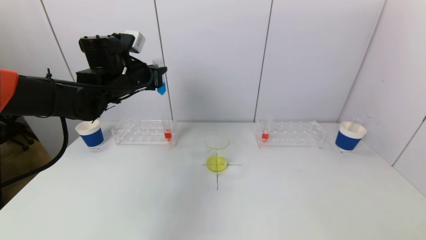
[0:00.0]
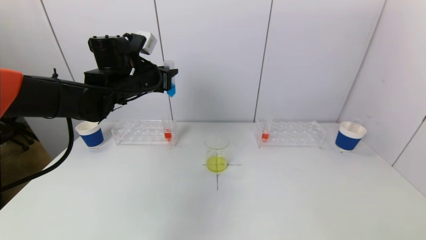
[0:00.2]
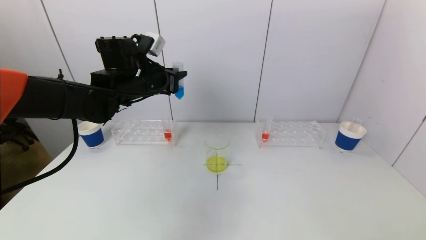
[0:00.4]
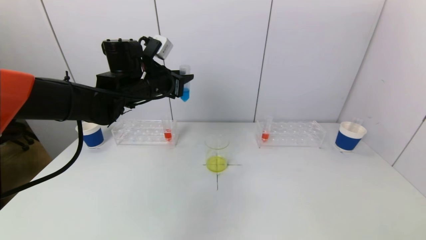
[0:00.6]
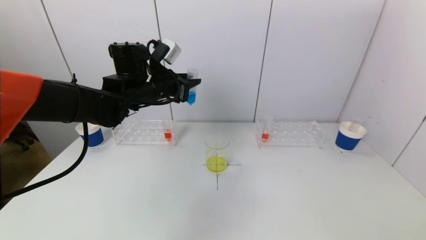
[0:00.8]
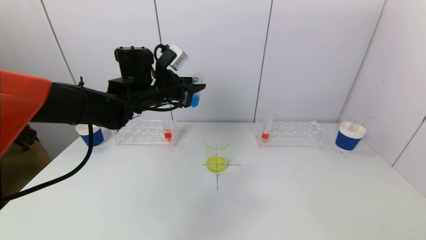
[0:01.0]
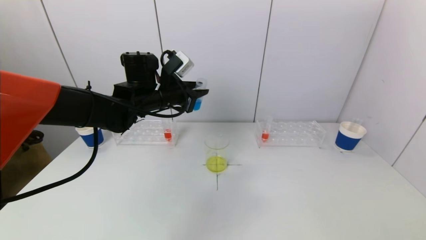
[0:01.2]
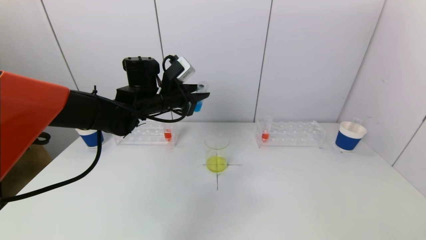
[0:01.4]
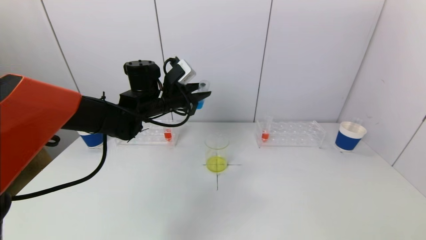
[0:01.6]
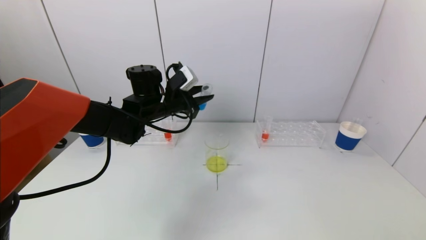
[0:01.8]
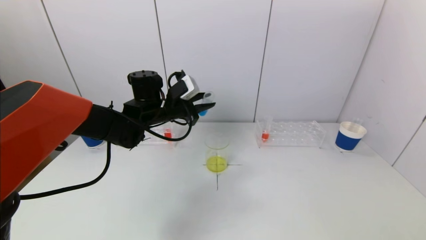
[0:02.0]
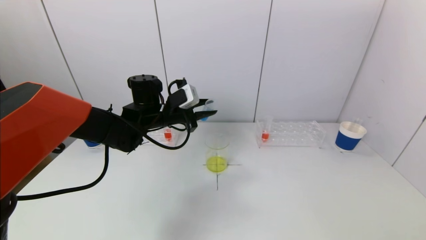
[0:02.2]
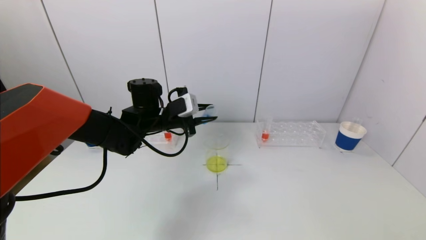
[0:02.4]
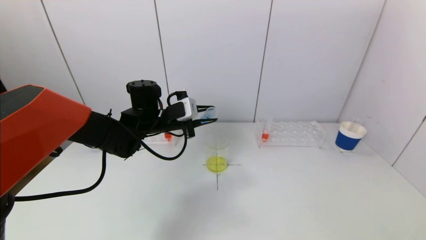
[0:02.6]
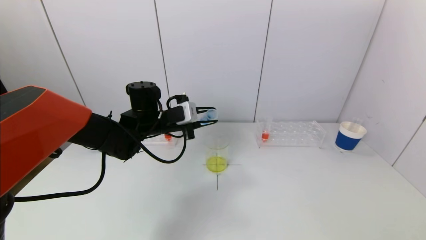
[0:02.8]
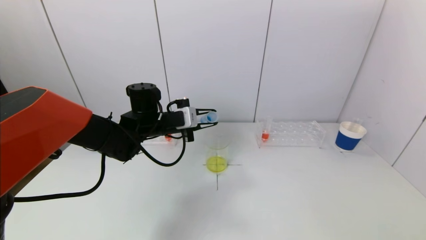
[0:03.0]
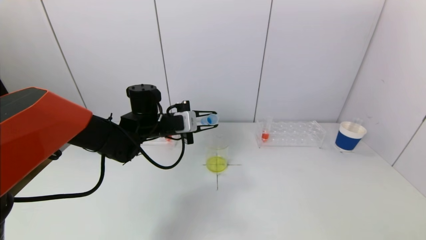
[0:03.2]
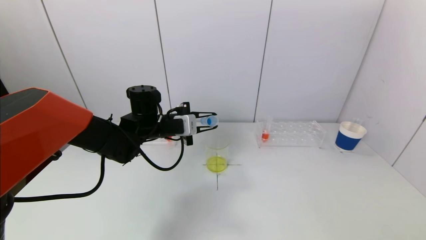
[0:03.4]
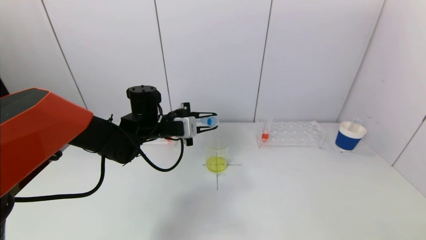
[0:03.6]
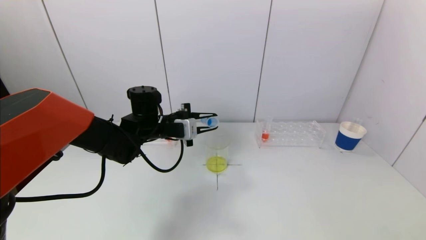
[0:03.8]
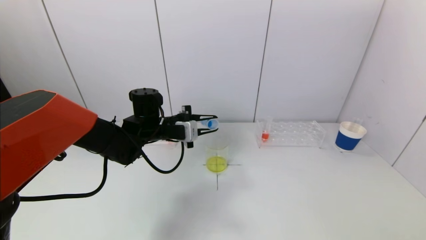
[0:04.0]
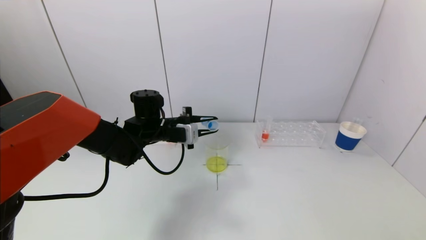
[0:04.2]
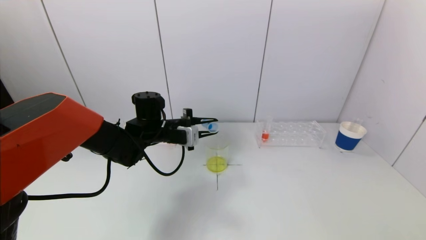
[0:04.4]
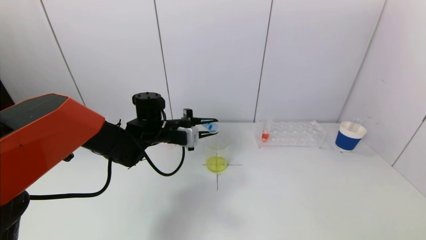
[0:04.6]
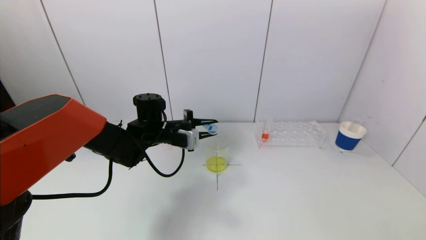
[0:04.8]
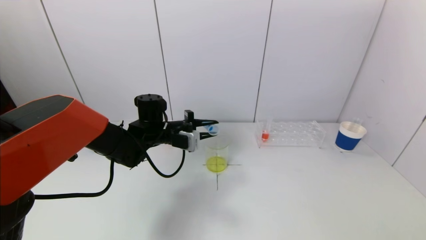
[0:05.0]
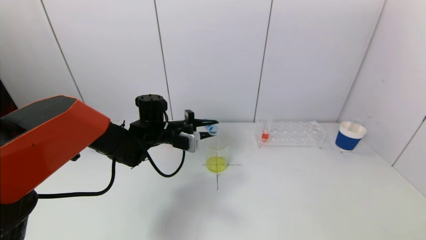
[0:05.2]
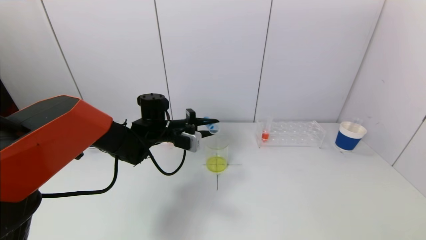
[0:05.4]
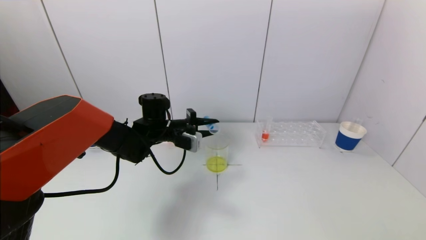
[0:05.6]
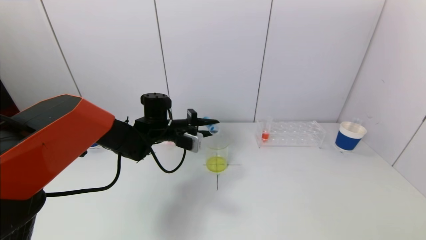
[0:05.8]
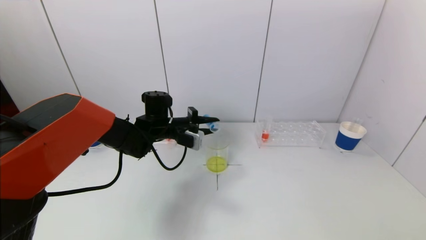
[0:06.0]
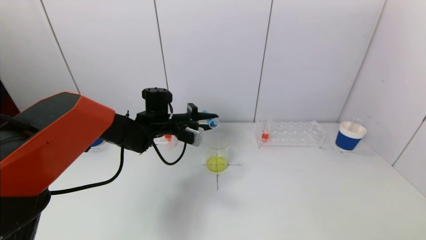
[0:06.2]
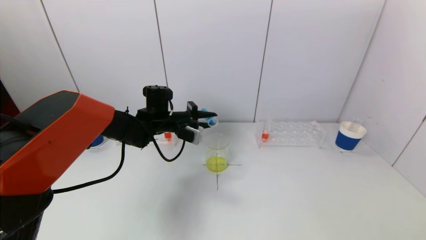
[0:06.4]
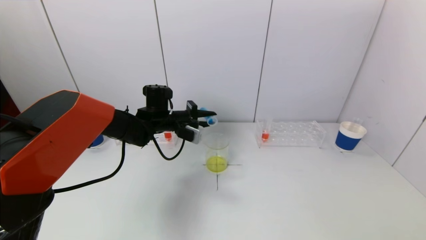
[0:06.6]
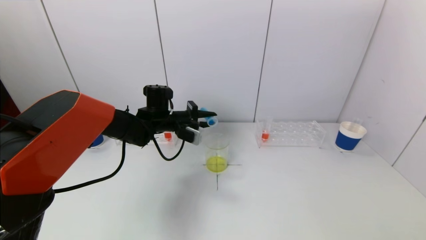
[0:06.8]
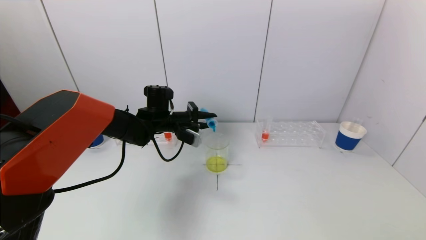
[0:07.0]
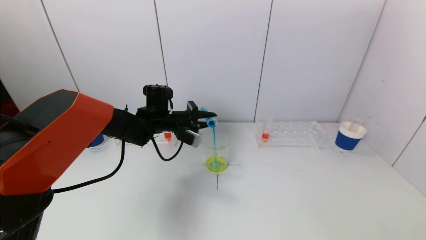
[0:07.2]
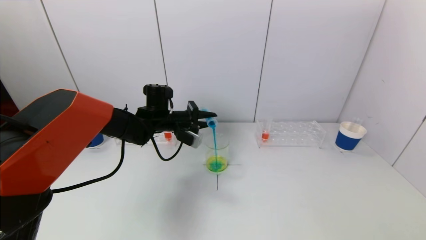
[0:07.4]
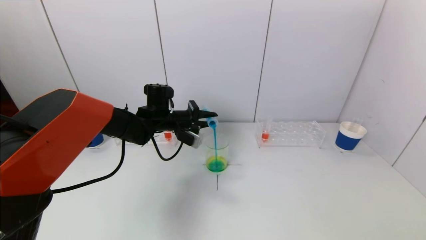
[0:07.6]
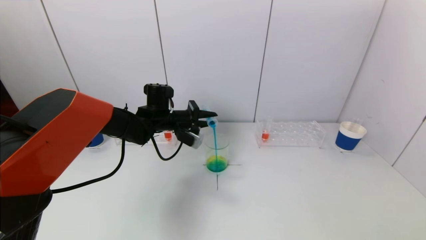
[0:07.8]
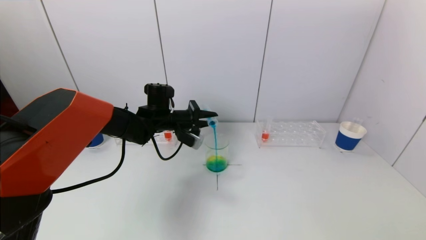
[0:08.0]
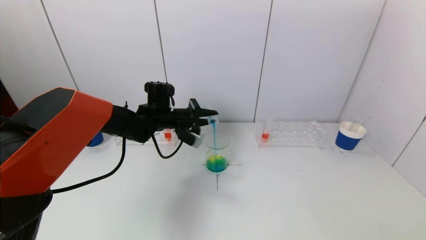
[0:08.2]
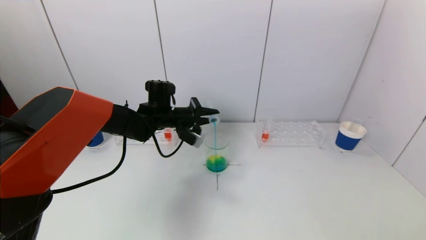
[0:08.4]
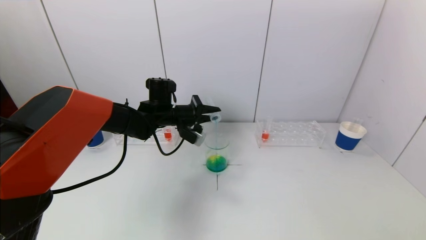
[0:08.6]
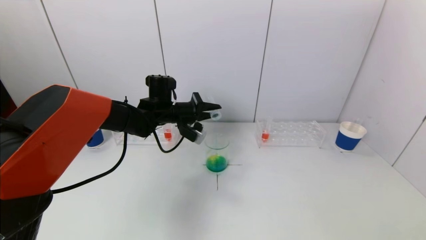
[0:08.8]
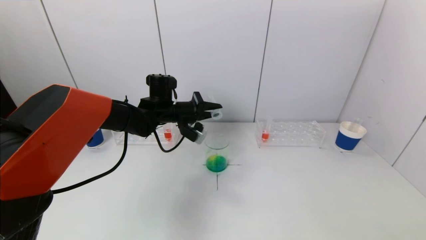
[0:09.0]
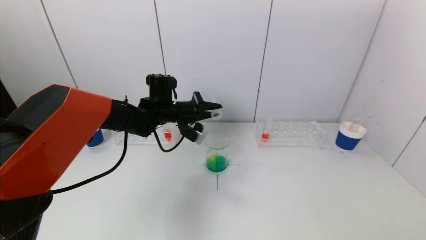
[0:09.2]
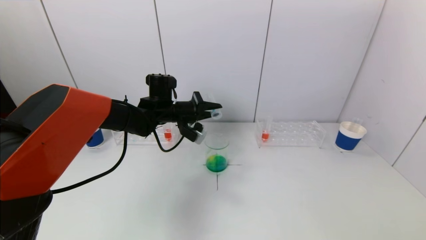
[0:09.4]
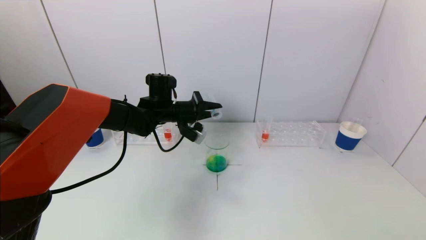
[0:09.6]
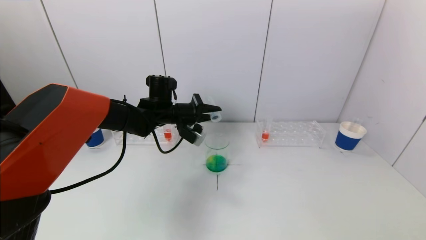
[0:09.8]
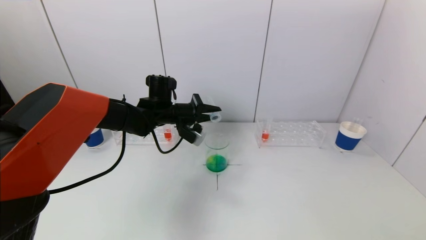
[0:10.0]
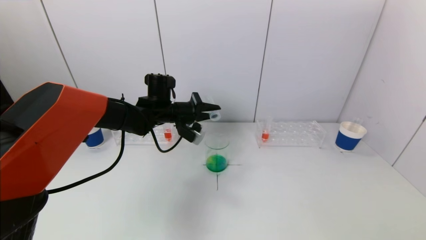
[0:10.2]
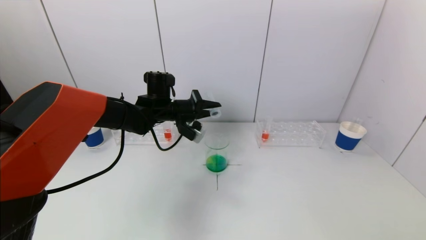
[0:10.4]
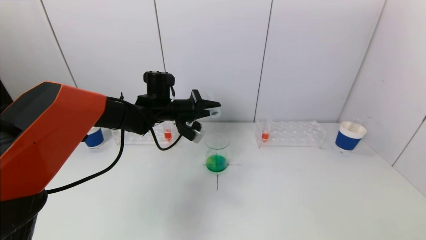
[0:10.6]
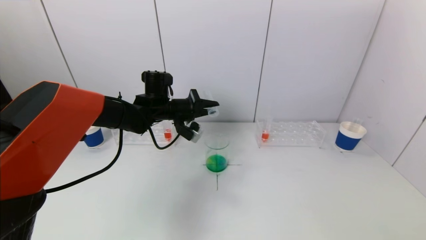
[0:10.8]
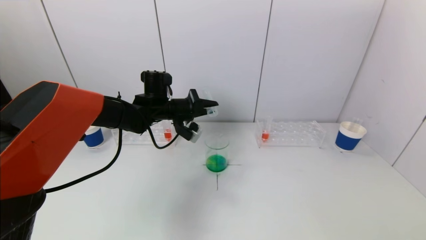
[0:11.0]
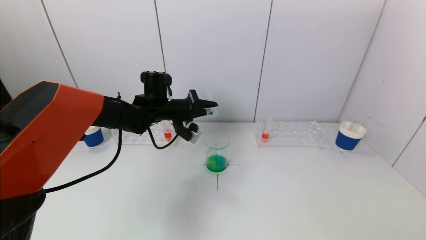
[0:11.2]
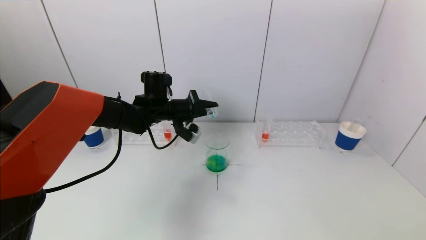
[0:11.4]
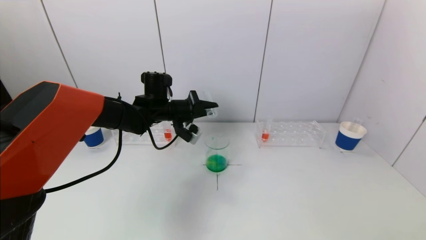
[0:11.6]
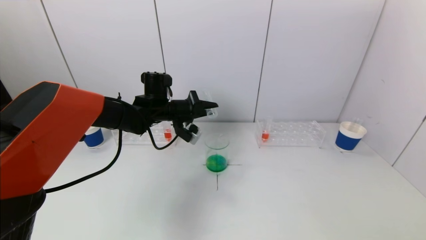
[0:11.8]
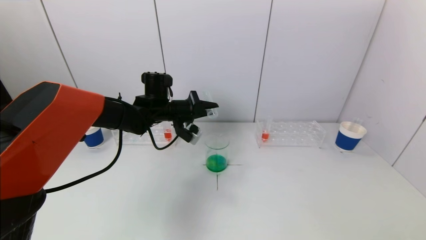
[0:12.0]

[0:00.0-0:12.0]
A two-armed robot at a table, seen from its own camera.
Task of the whole recording: pick up a test tube with pigment on left test tube rack and a test tube with pigment on right test tube rack by grippers and pour them into the beaker.
Step, 0:00.0 to 0:10.8: Pour the blue reagent into the graduated cylinder with the left gripper.
0:00.0 to 0:01.6: The left gripper travels to the right and downward by some 10 cm.
0:01.6 to 0:03.0: The left gripper shifts by about 5 cm.
0:03.0 to 0:04.4: The grippers stay close to where they were, moving slightly.
0:04.4 to 0:06.0: The grippers move only a little.
0:06.0 to 0:07.6: There are only small adjustments of the grippers.
0:07.6 to 0:09.0: The grippers stay close to where they were, moving slightly.
0:09.0 to 0:10.4: Both grippers stay put.
0:10.4 to 0:12.0: The grippers move only a little.

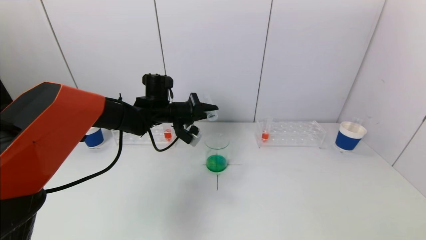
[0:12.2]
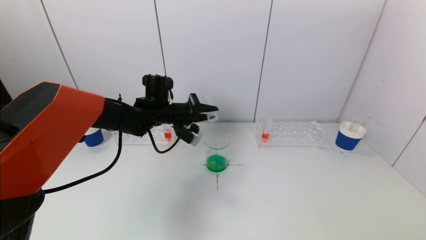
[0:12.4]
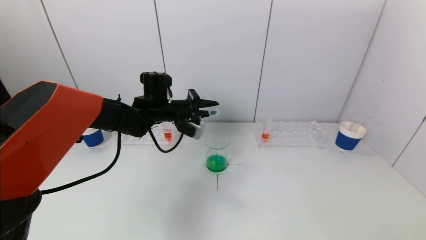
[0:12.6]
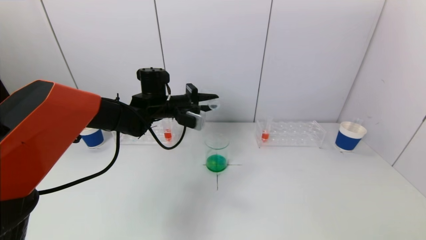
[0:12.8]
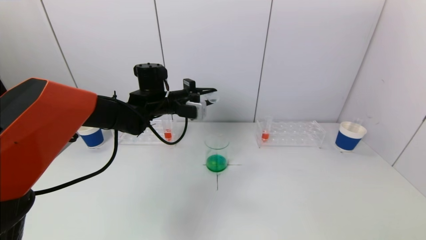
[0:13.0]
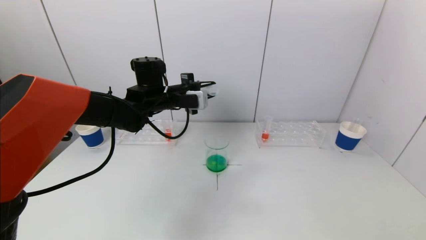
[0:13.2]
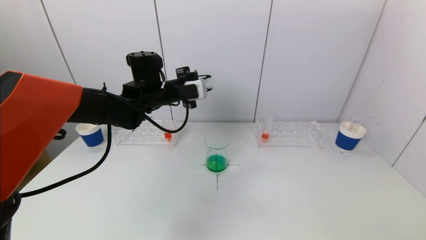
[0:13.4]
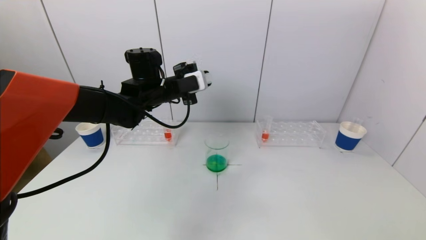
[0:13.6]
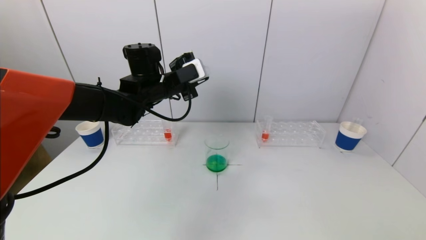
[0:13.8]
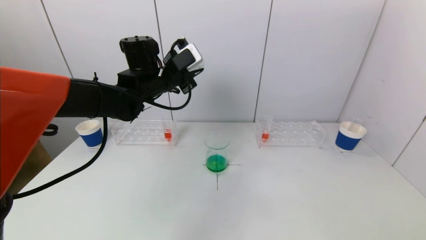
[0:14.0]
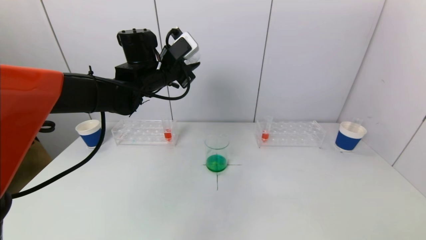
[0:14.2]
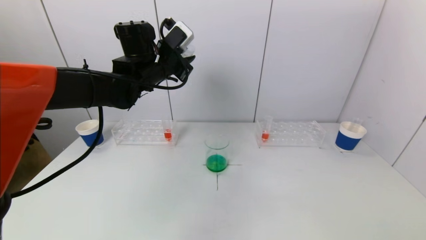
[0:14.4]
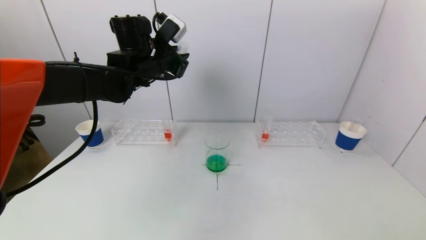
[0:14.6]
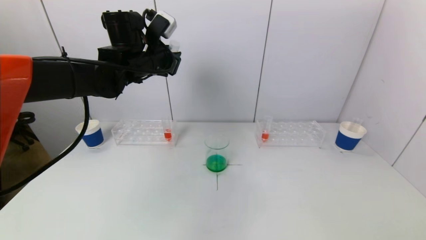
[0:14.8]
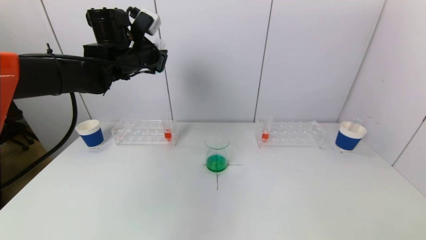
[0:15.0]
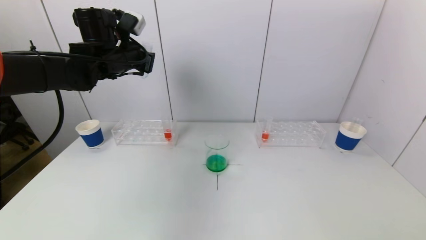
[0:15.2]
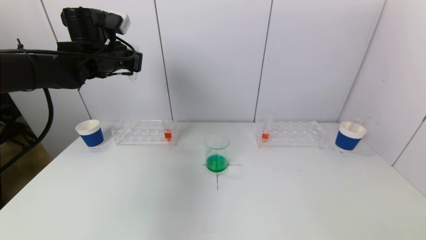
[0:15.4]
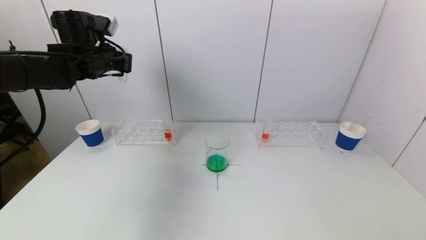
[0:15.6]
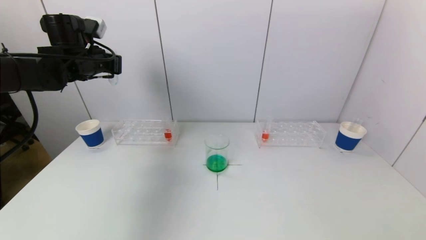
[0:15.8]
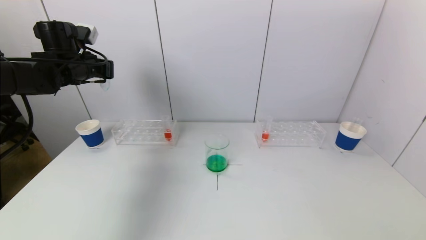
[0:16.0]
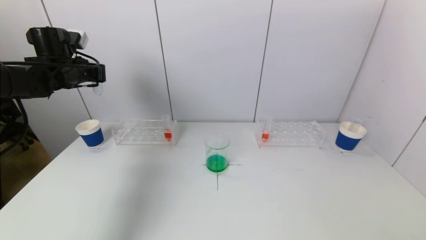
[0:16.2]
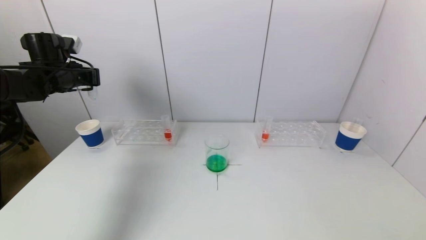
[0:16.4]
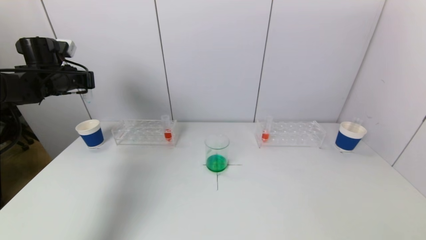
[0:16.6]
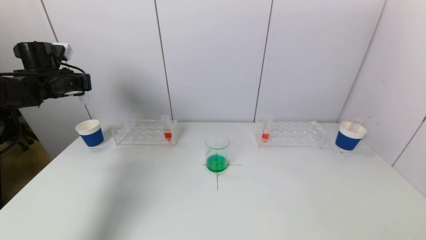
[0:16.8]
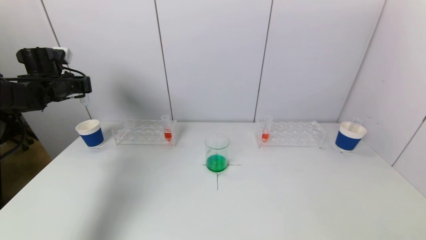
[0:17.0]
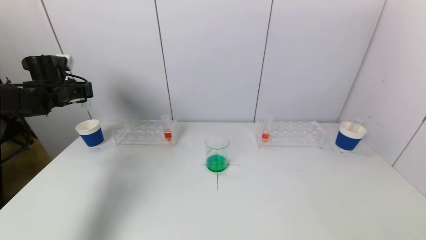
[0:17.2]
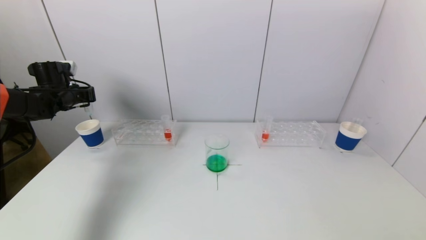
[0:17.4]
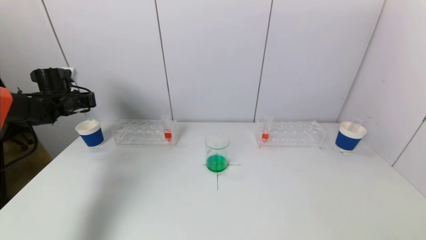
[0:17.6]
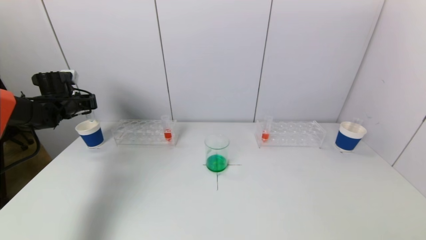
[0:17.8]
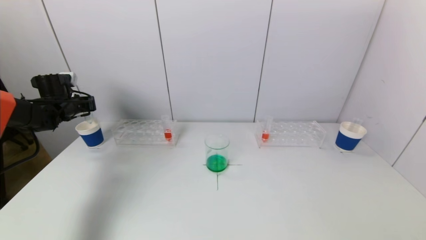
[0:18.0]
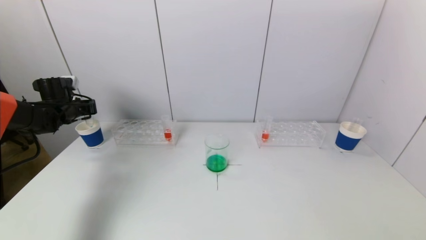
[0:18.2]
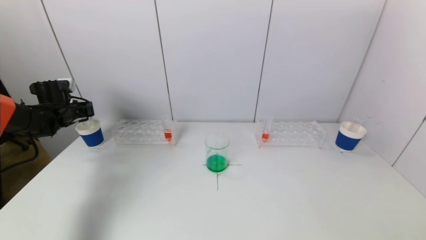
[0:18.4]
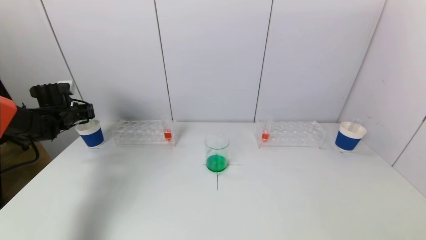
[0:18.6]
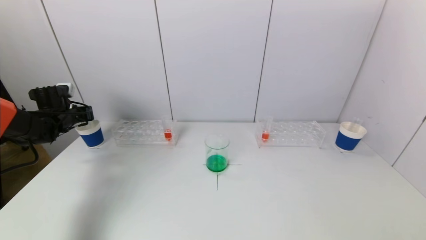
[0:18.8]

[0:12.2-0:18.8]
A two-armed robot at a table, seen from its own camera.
Task of the whole recording: pick up a test tube with pigment on left test tube rack and a test tube with pigment on right test tube rack by grippers and pour them into the beaker.
0:12.2 to 0:13.8: The left gripper goes approximately 10 cm upward.
0:13.8 to 0:15.4: The left gripper travels to the left and upward by some 15 cm.
0:15.4 to 0:17.2: The left gripper heads to the left and downward, covering roughly 20 cm.
0:17.2 to 0:18.8: The left gripper heads downward, covering approximately 10 cm.
